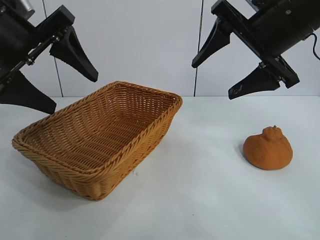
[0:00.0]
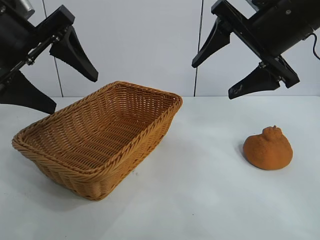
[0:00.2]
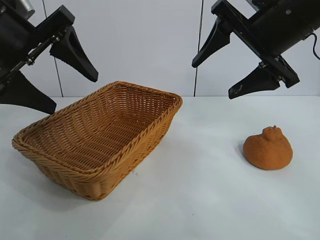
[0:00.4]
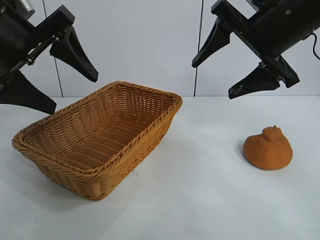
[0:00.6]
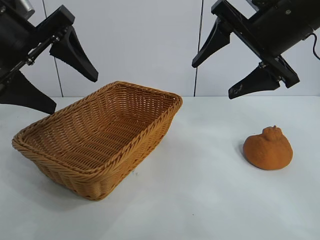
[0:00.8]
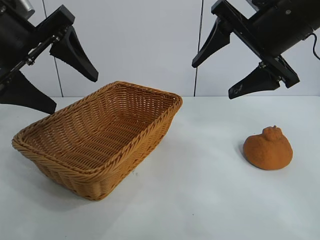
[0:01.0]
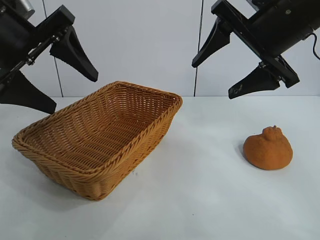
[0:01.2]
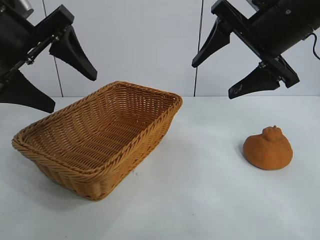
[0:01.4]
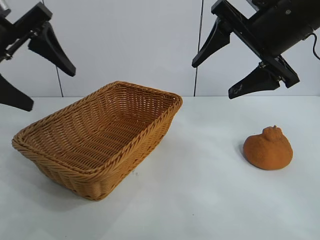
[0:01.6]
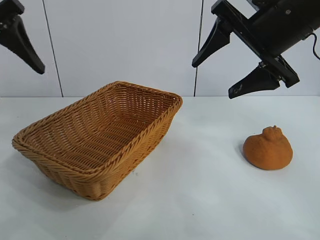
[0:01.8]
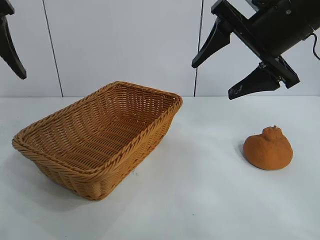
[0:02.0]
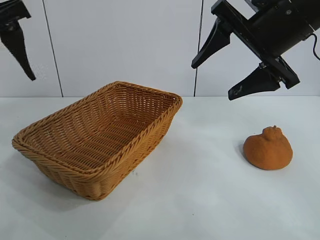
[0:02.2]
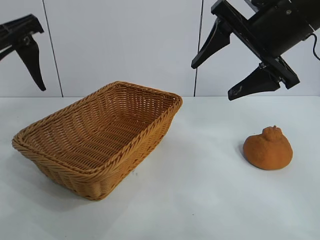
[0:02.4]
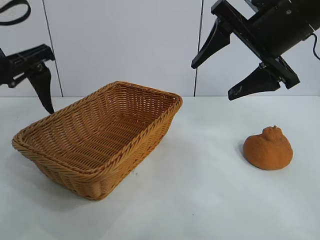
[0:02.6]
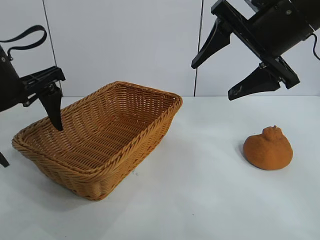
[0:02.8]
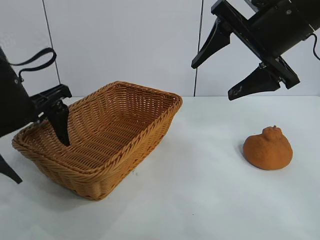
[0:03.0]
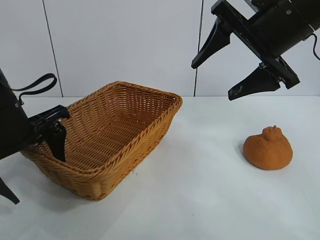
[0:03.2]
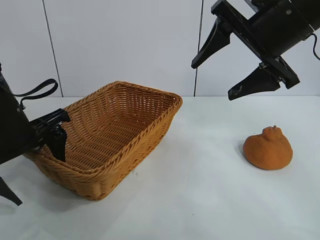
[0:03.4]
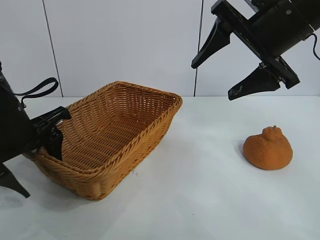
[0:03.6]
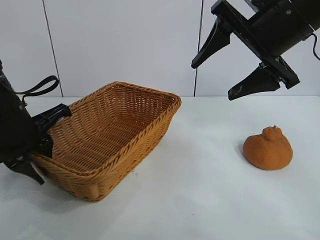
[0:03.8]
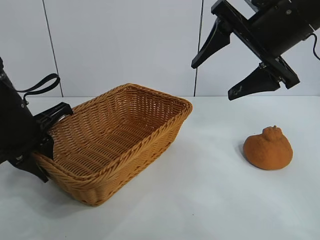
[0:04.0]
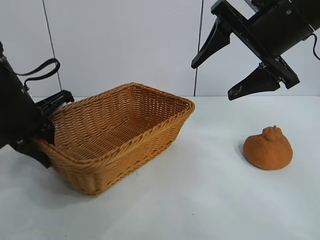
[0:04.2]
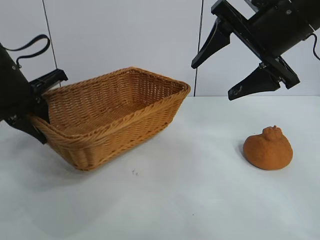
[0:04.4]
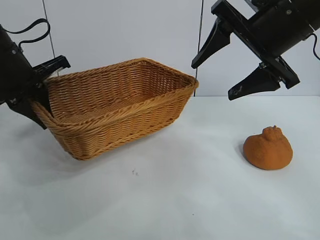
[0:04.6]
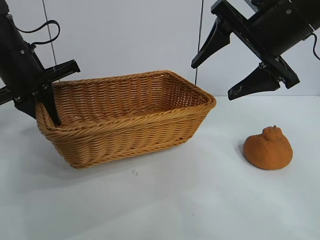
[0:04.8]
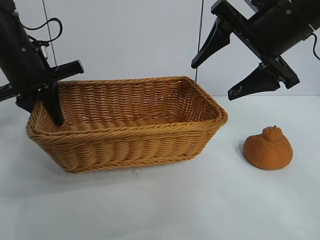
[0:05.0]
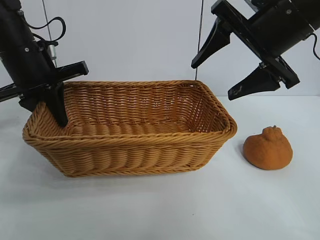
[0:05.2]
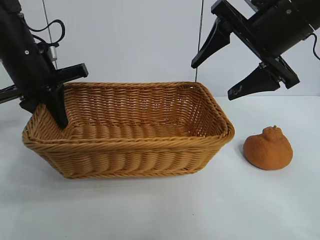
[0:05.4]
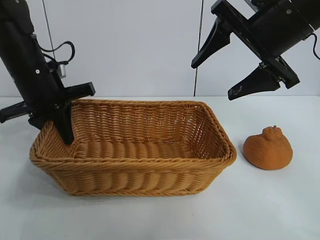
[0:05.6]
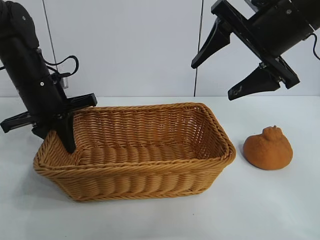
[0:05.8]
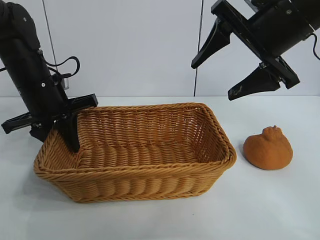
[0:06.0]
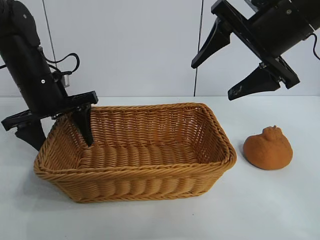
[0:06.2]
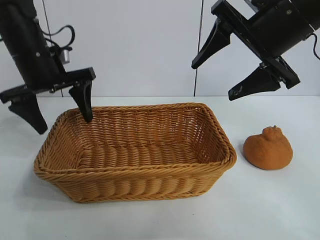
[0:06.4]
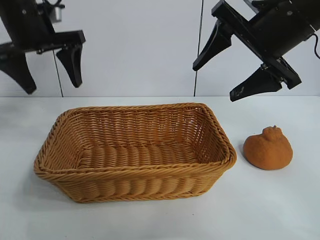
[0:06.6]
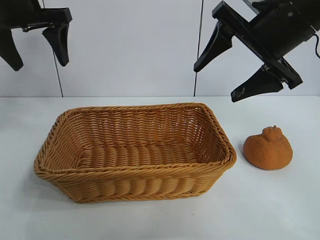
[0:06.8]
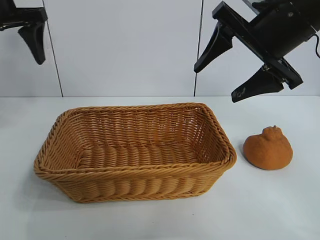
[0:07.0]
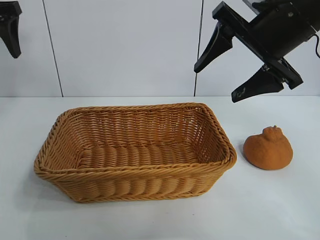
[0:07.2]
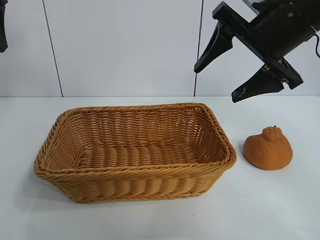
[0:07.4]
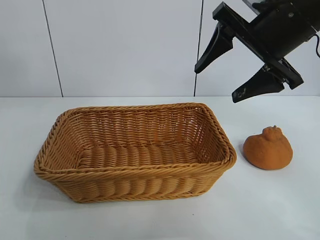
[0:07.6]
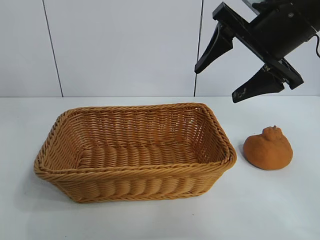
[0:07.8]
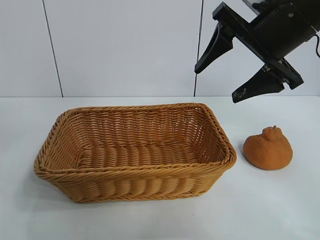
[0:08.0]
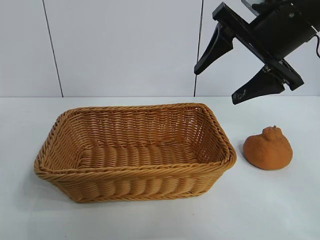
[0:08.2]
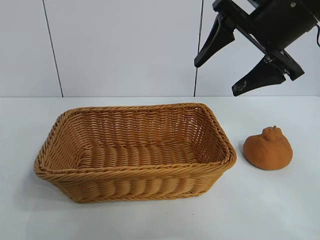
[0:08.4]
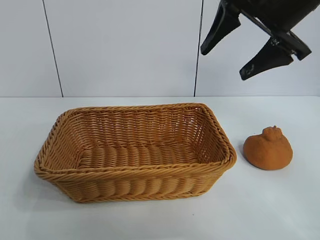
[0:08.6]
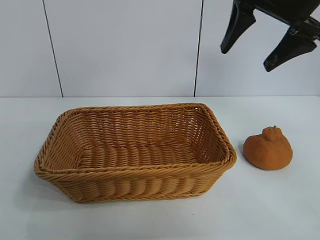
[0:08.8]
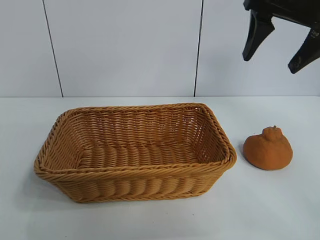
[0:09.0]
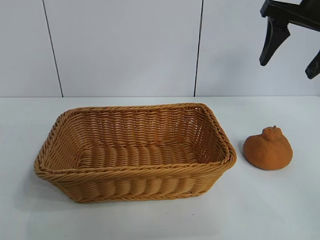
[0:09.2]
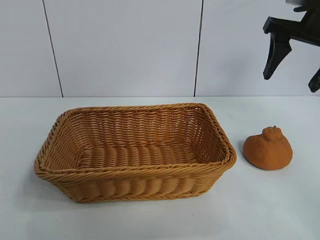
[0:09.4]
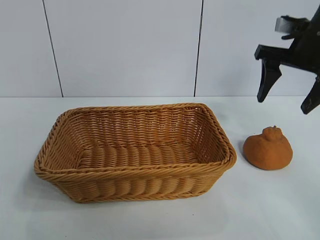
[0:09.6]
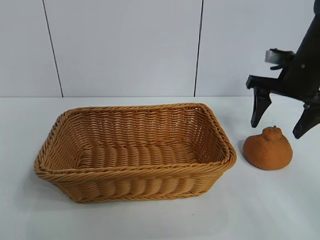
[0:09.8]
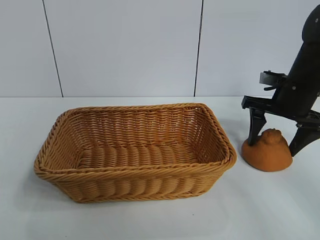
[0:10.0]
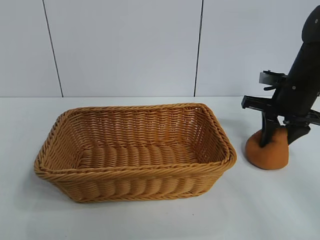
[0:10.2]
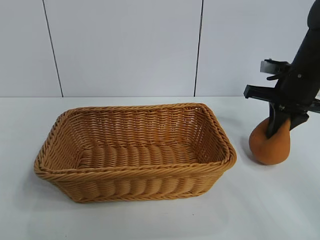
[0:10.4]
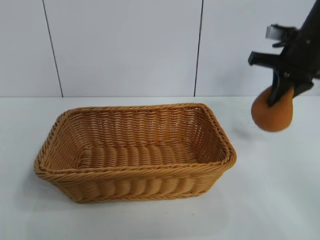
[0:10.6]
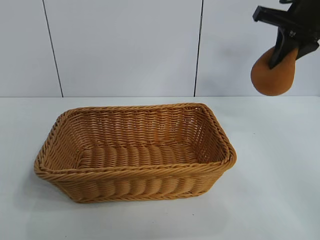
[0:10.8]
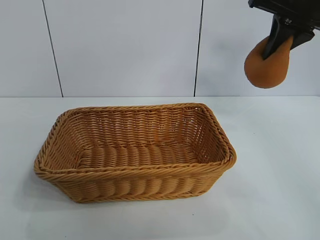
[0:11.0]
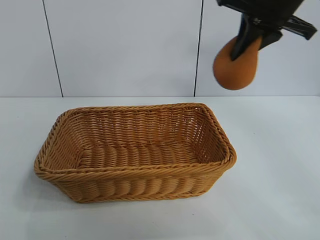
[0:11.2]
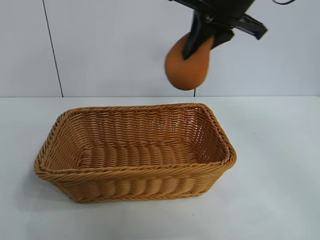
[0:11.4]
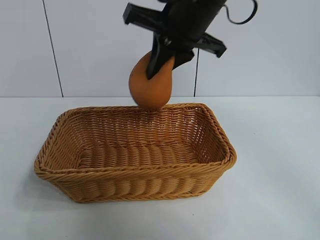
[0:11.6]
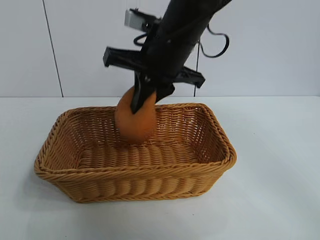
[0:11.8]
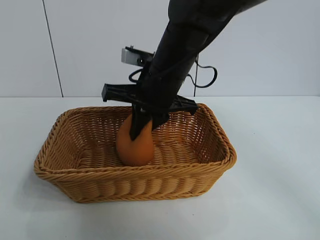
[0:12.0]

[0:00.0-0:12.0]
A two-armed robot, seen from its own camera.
Task of the whole recording: pick up the orange and put it into the basket.
Step, 0:01.0 to 0:03.8: Grasp the basket with left gripper.
Step, 0:04.0 to 0:06.0: Place the basket in the center of view with left gripper.
Step, 0:06.4 to 0:10.2: Grasp the orange with right gripper.
